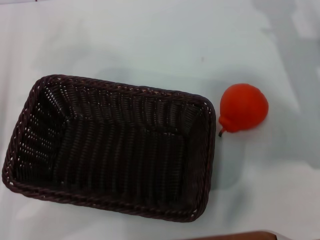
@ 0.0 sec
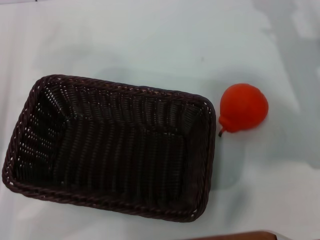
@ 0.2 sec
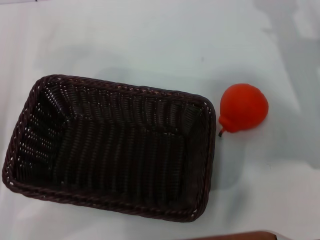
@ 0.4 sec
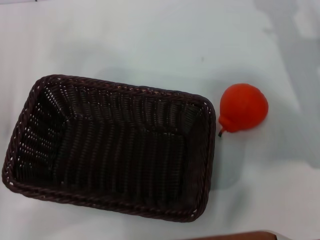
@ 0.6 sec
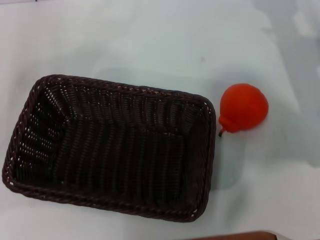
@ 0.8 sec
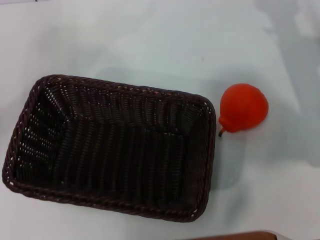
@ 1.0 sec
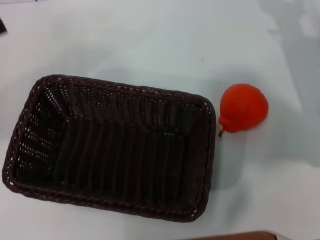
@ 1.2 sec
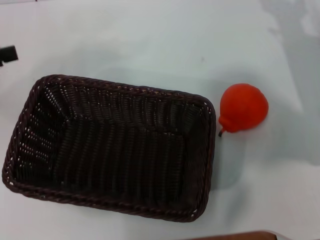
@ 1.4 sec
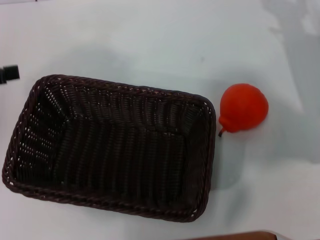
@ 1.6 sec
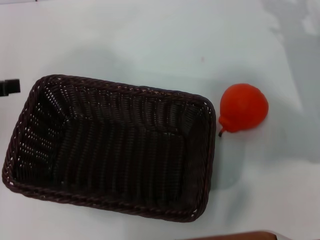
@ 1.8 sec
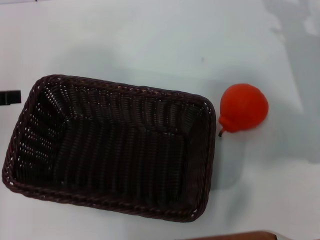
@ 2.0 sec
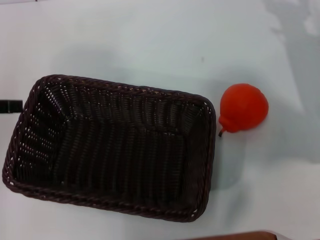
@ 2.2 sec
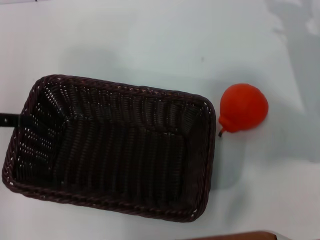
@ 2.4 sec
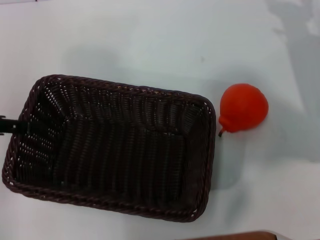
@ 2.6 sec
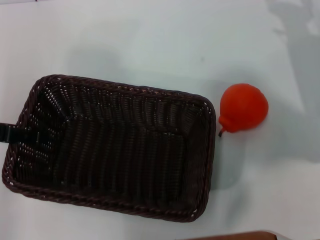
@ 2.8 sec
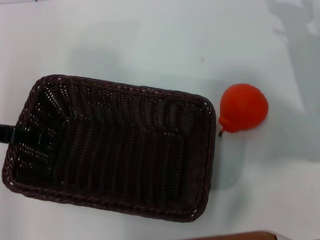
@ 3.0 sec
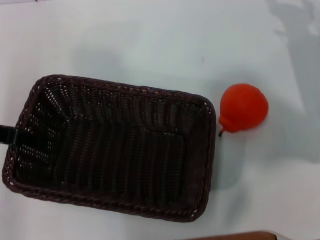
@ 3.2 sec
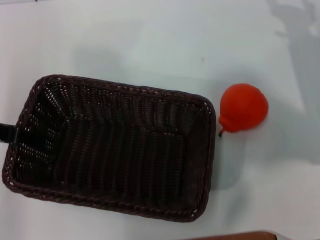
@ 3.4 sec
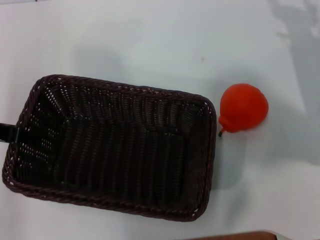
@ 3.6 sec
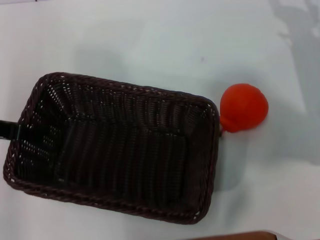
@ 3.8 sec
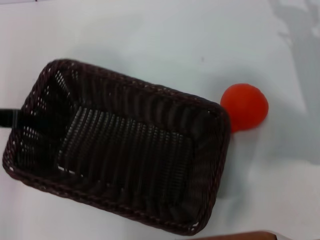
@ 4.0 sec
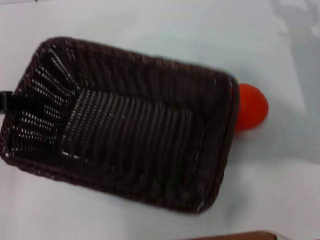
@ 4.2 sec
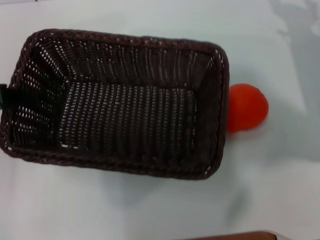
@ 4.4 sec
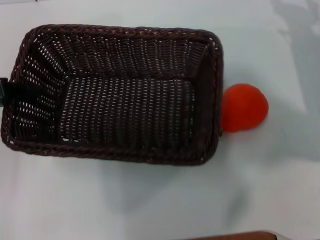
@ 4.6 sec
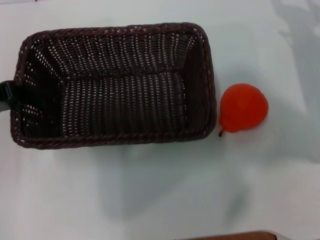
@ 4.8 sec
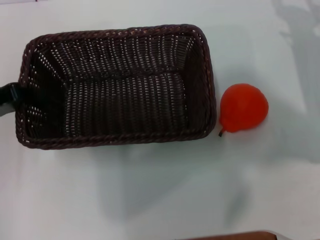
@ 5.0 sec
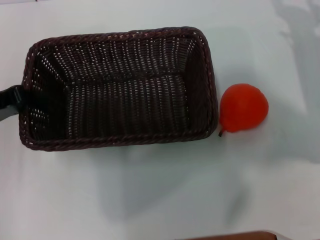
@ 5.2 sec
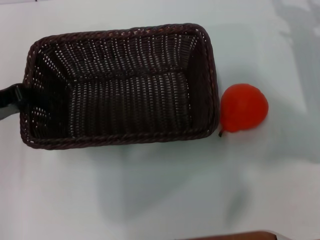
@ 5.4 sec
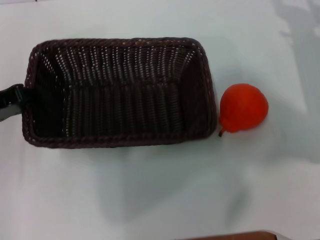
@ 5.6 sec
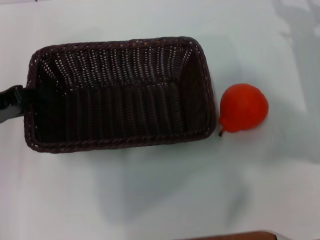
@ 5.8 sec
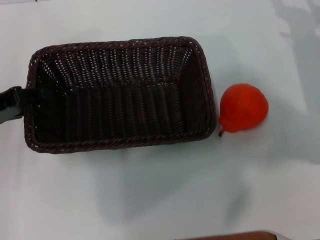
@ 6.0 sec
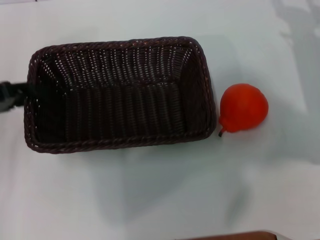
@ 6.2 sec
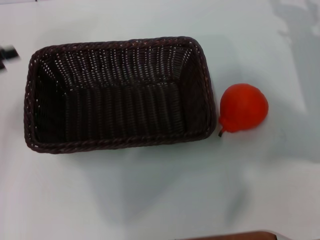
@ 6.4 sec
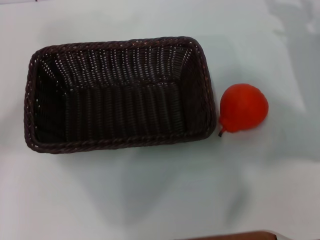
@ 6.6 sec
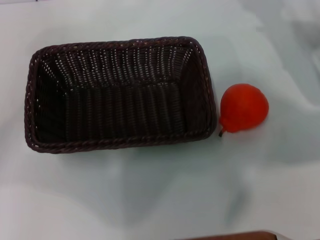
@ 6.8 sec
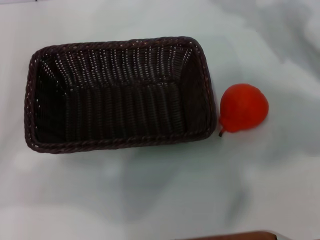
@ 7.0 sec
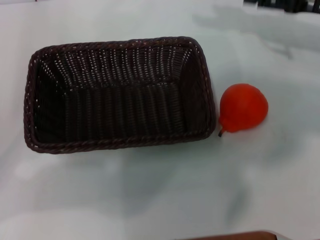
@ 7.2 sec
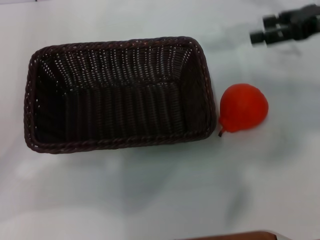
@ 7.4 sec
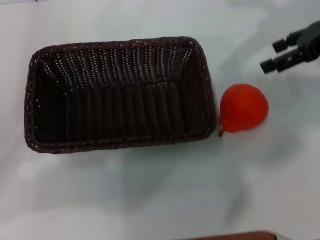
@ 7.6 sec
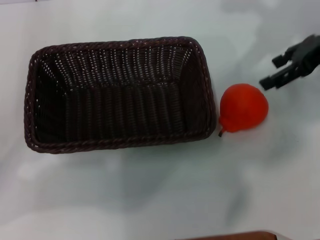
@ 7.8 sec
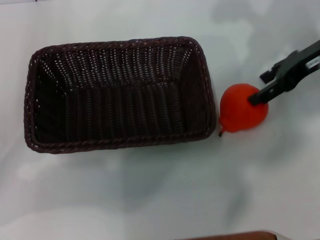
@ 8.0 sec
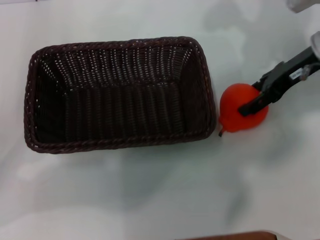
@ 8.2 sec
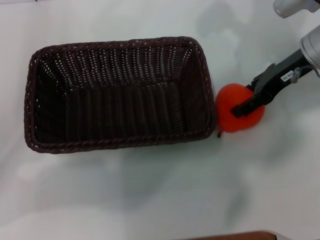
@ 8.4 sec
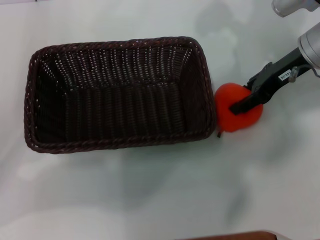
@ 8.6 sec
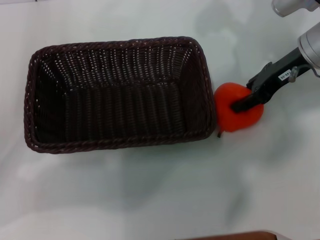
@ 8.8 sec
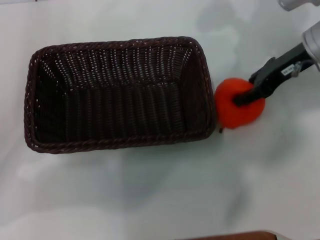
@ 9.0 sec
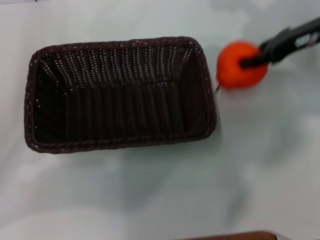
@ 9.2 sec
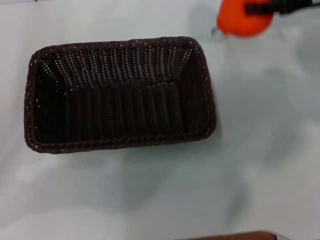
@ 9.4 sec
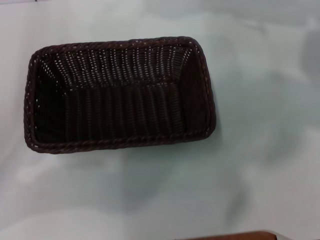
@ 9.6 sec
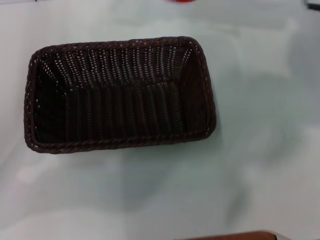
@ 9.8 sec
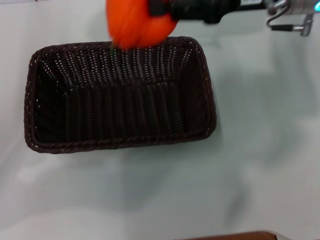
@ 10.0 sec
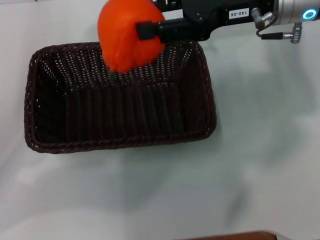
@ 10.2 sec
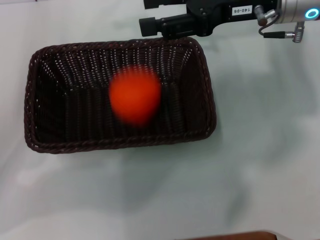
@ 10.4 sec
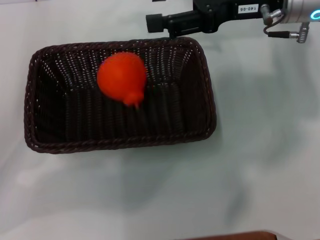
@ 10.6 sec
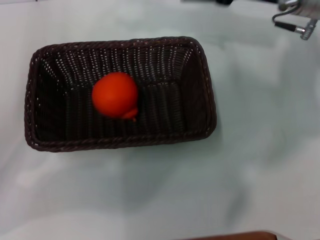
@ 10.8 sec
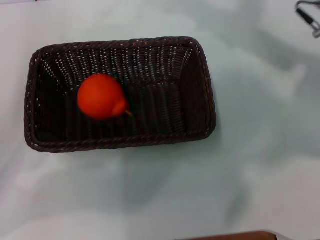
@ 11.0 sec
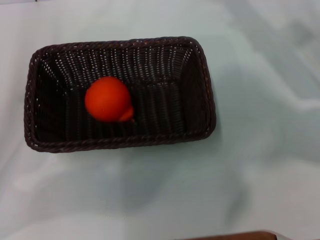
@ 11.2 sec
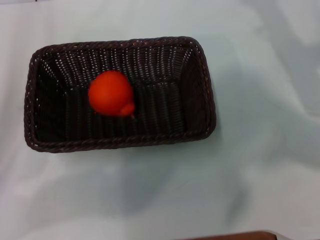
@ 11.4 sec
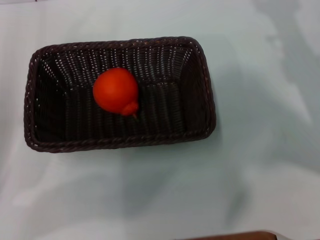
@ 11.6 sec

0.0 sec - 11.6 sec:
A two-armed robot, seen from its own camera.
Task of the whole recording: the left gripper pick up the black basket and place it horizontally in the middle of the table, the right gripper pick up the orange and place it into the black basket.
Step, 0.0 sec - 4.0 sec: Pick up the dark basket with the left gripper.
Step, 4.2 sec - 6.2 sec: Place the dark basket in the center of view with the left gripper.
Step, 6.4 sec - 9.2 sec: Pick up the orange with the right gripper.
Step, 9.4 sec - 10.6 sec: Place the orange into the dark basket with the right gripper.
0.0 sec - 1.4 sec: The left gripper heads upward and forward, covering approximately 15 cm, and opens its fingers.
1.4 sec - 2.8 sec: The left gripper heads to the right, covering about 5 cm.
2.8 sec - 4.4 sec: The left gripper closes its fingers.
4.4 sec - 5.8 sec: The grippers stay close to where they were, moving slightly.
5.8 sec - 7.2 sec: The right gripper heads upward, covering roughly 10 cm, while the left gripper opens.
7.2 sec - 8.8 sec: The right gripper is displaced to the left by approximately 10 cm, and closes up.
8.8 sec - 10.2 sec: The right gripper heads to the left and upward, covering about 10 cm.
10.2 sec - 11.6 sec: The right gripper moves to the right, downward and backward, approximately 20 cm, and opens.
